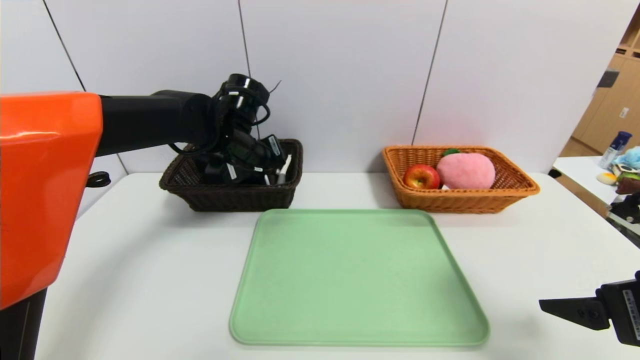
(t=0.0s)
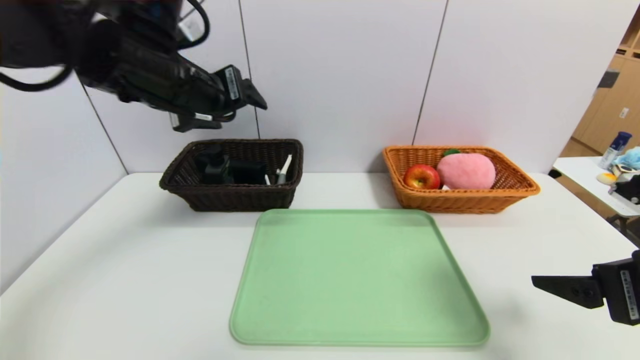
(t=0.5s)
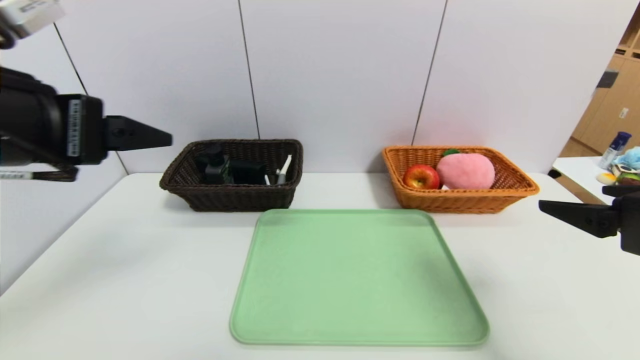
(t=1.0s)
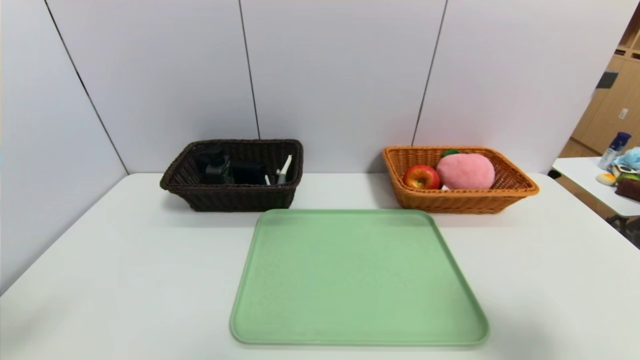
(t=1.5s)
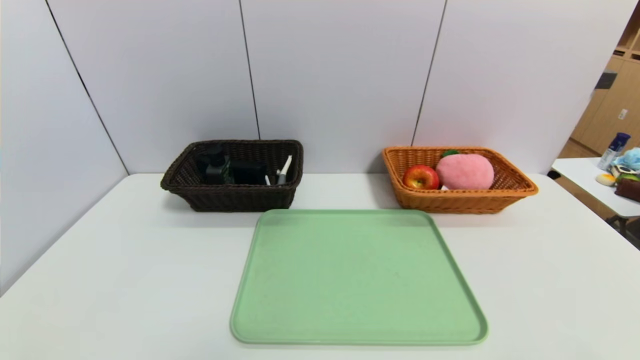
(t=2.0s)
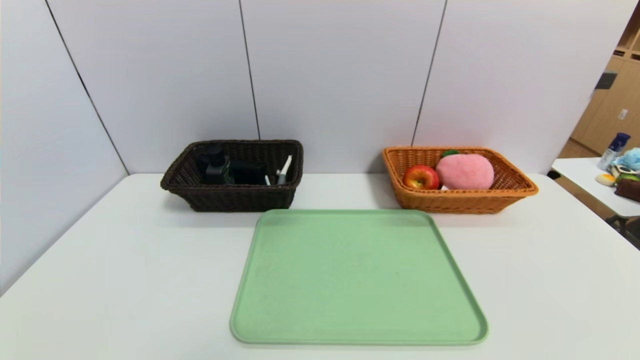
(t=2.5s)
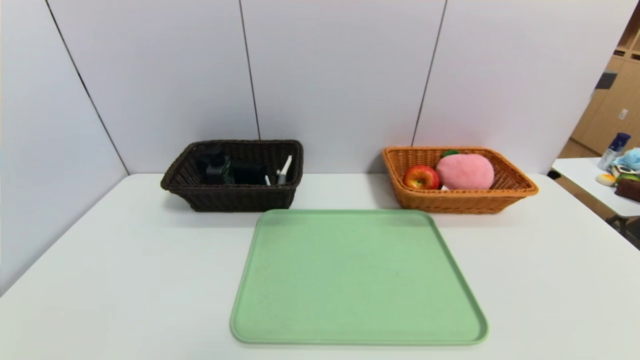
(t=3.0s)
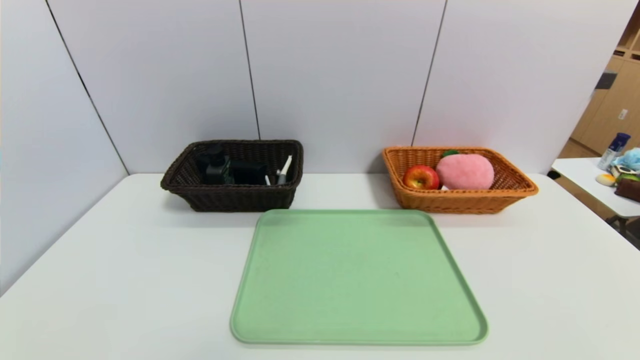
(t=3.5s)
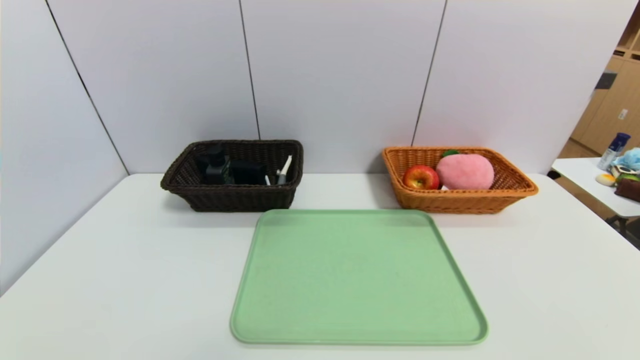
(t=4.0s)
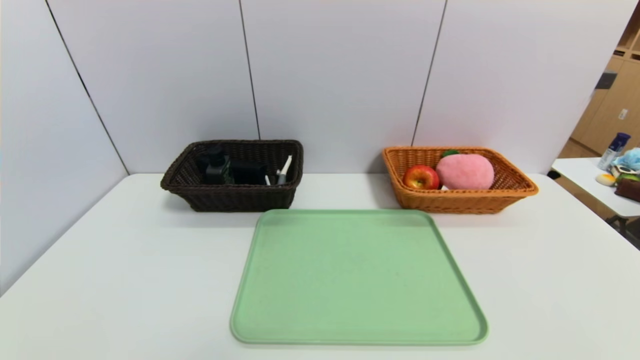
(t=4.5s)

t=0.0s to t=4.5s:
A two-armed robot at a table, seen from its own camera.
Task of the whole recording: place the food in the right basket with the right gripper, and place the non food items in the left basket with the left gripper.
t=0.0s to t=2.0s: The right gripper goes roughly 15 cm backward. The left gripper travels backward and to the left by approximately 50 cm.
